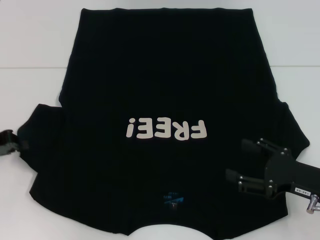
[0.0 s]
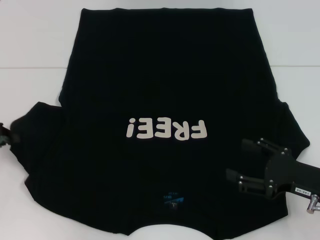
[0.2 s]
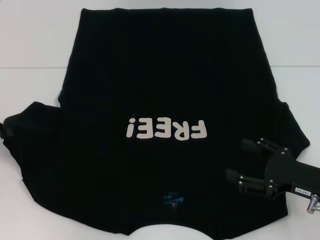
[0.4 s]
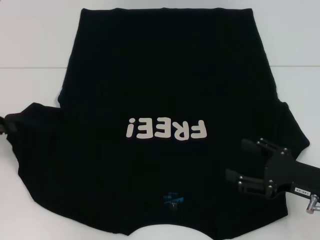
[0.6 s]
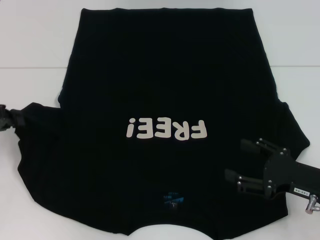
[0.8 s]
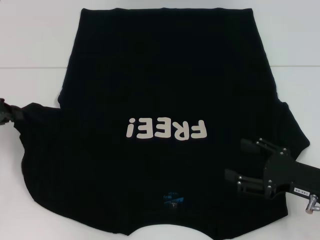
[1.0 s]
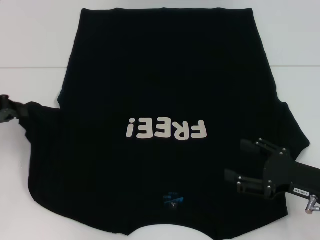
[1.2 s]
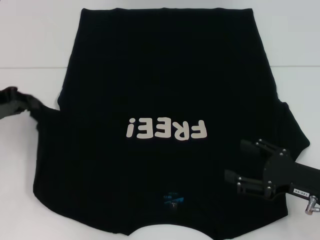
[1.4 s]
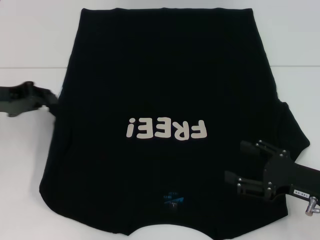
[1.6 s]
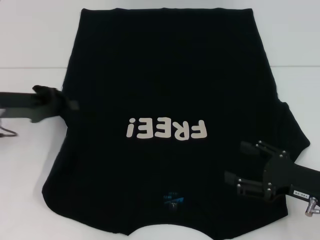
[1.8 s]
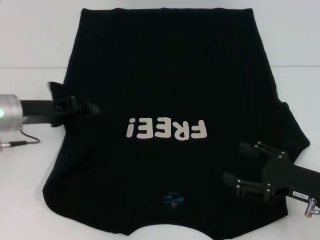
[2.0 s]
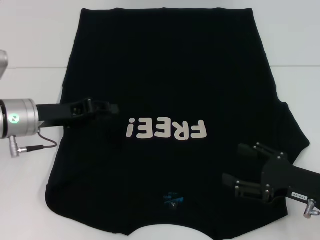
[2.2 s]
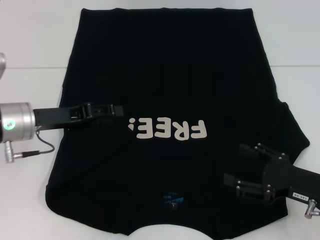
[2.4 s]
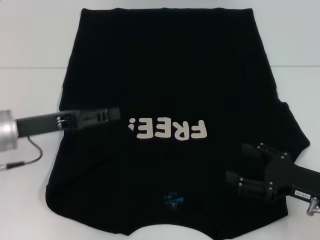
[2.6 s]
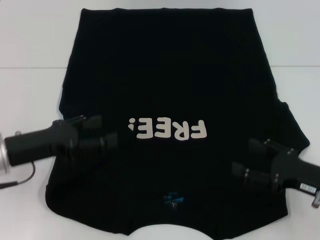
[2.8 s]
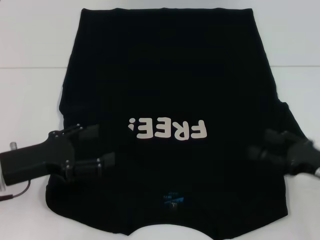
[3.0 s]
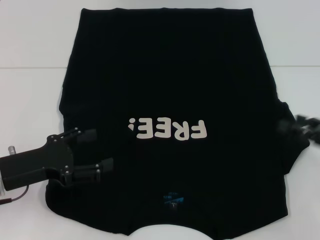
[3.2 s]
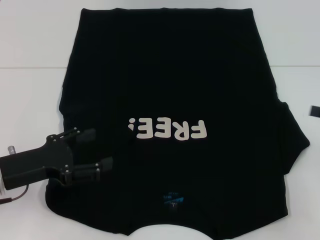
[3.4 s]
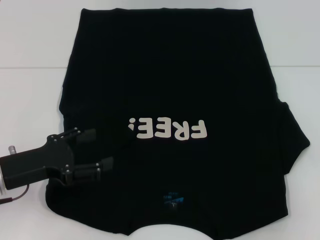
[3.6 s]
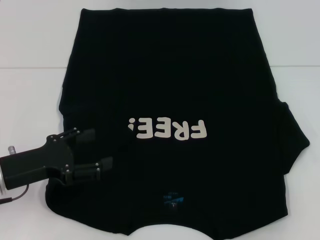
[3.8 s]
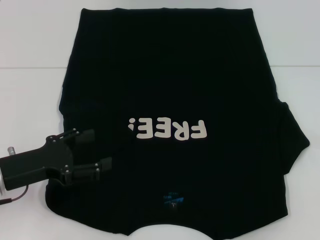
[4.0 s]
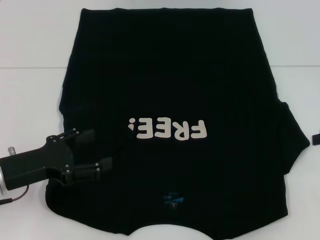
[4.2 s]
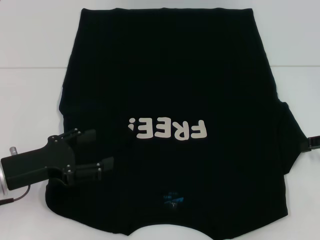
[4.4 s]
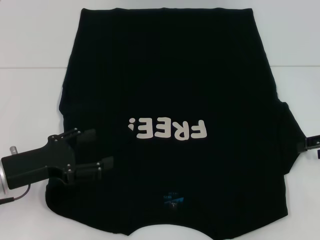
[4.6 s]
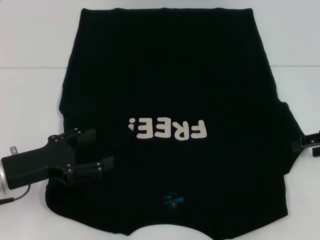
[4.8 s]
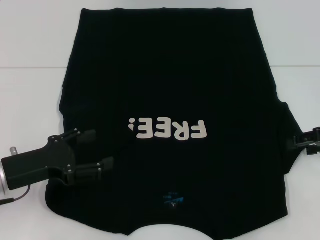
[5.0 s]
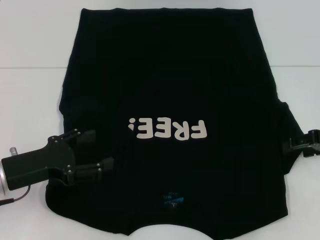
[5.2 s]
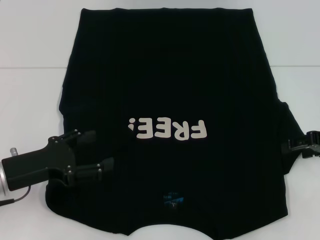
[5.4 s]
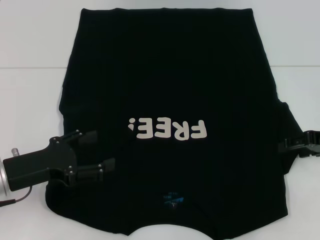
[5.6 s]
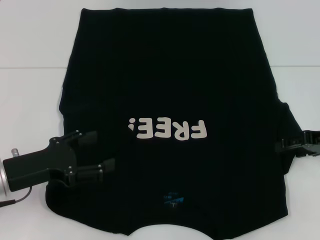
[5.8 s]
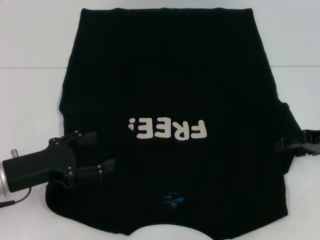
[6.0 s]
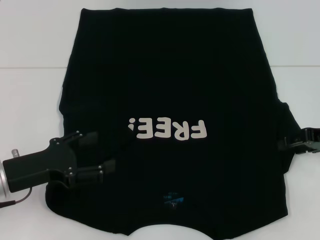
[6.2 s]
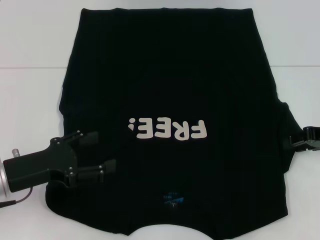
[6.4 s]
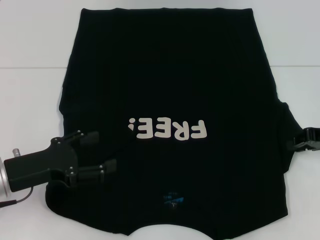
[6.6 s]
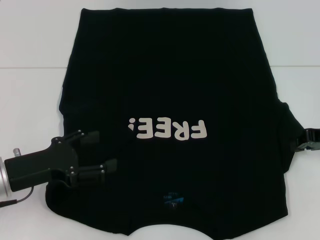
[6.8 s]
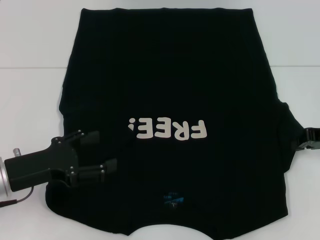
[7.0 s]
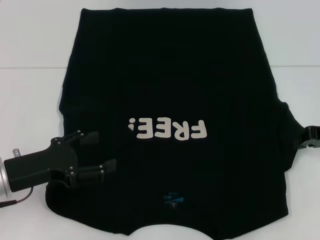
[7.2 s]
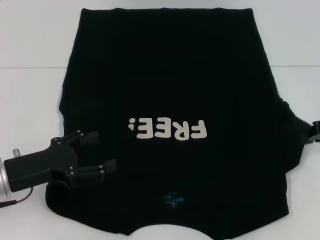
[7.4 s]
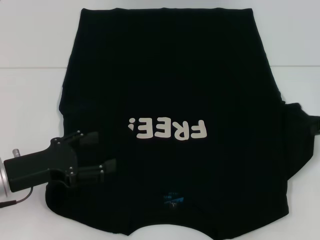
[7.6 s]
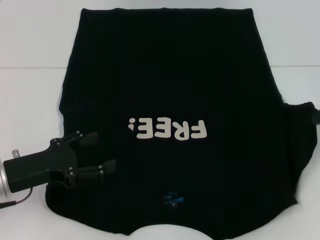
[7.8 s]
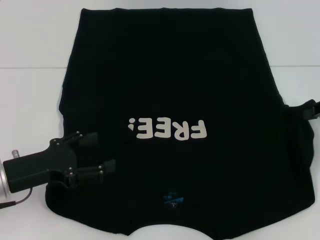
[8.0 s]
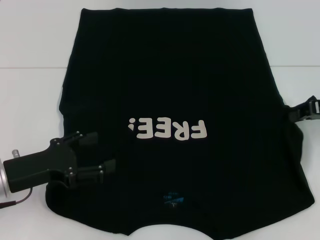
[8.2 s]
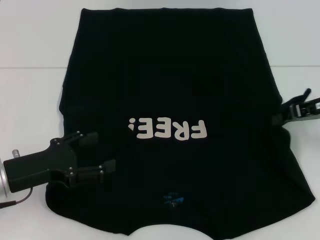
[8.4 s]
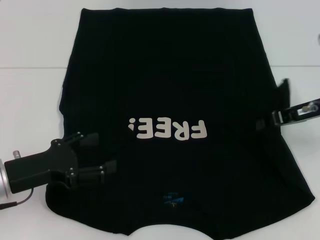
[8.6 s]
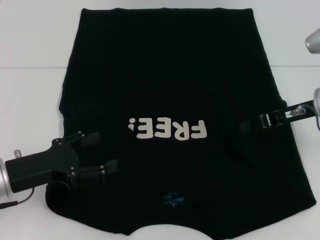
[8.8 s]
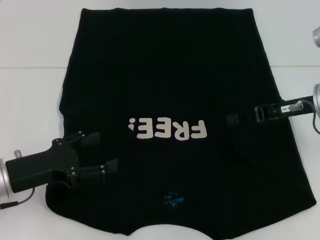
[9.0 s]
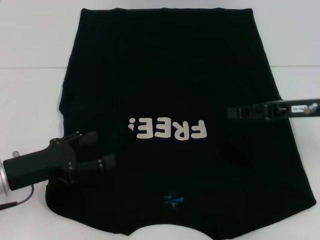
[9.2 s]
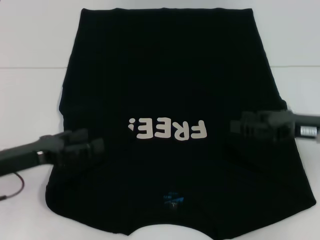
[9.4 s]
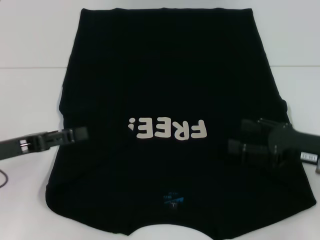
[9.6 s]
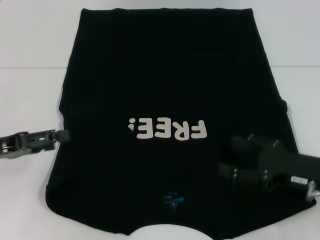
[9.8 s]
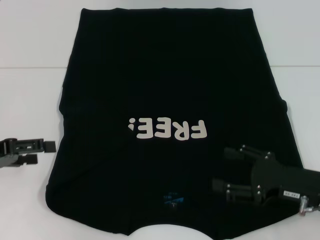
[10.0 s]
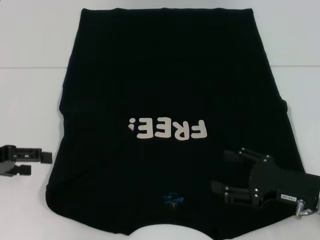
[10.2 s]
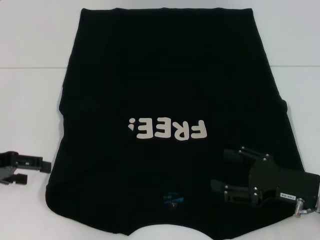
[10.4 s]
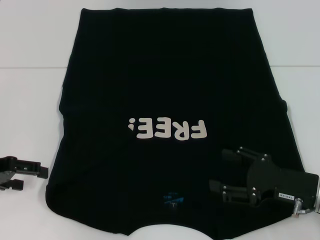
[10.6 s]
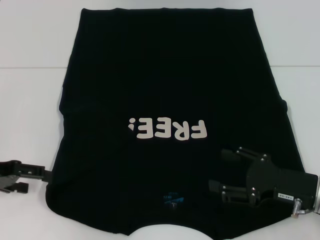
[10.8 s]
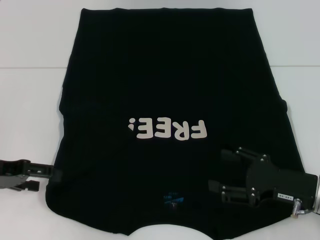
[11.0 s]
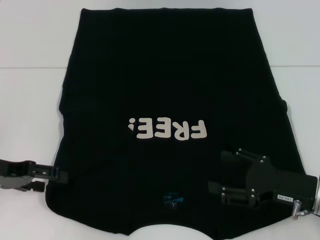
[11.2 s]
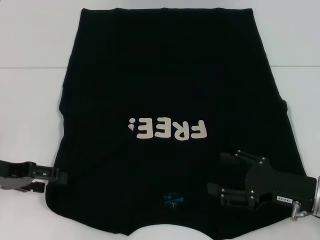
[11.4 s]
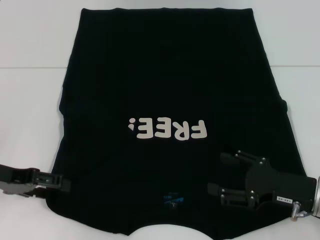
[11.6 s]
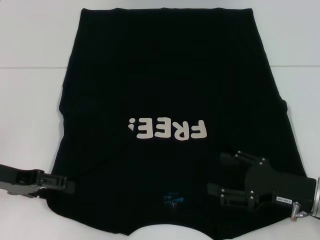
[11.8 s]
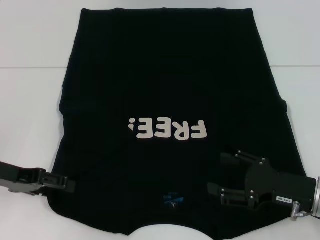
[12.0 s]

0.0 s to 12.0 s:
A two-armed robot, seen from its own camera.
Step, 0.0 to 2.2 s: Fold the bottom left sleeve with your left hand.
Step, 2.4 to 9.0 s: Fold the bottom right sleeve with your right hand.
0.0 to 1.6 s: The left gripper is displaced upward by roughly 5 cm.
1.6 to 3.0 s: The left gripper heads backward, downward and to the right, covering roughly 10 cm, and opens its fingers.
3.0 to 4.4 s: The right gripper travels forward, upward and to the right by about 15 cm.
4.4 to 6.0 s: The grippers move only a little.
6.0 to 7.6 s: The right gripper closes up.
7.6 to 9.0 s: The right gripper heads to the left, covering about 10 cm.
9.0 to 10.4 s: The left gripper heads to the left and upward, covering some 10 cm. The right gripper goes about 15 cm backward and downward, and opens.
10.4 to 12.0 s: The grippers stay close to where they were, moving slightly.

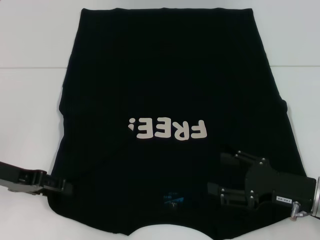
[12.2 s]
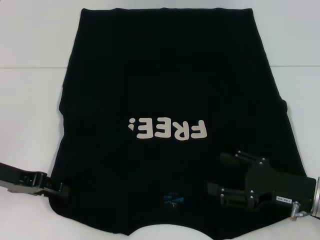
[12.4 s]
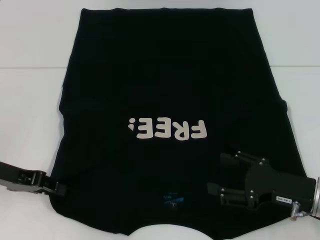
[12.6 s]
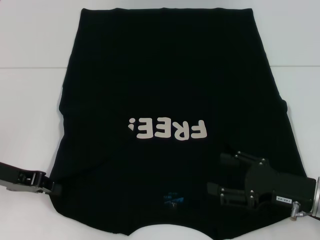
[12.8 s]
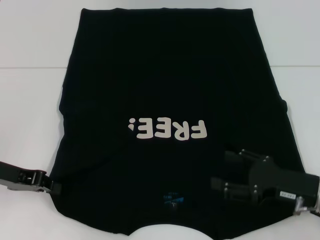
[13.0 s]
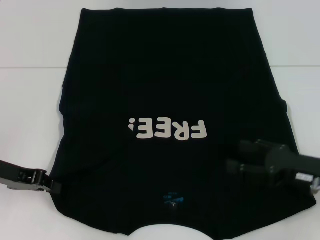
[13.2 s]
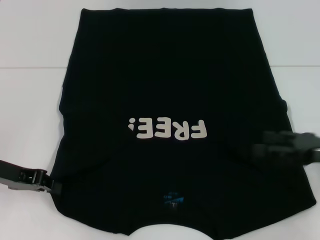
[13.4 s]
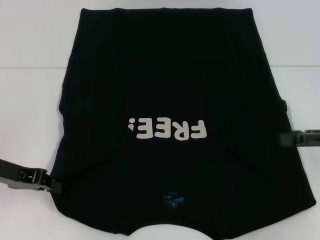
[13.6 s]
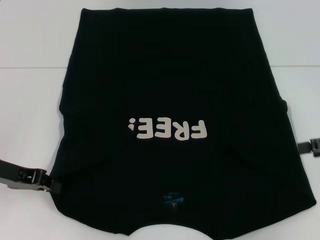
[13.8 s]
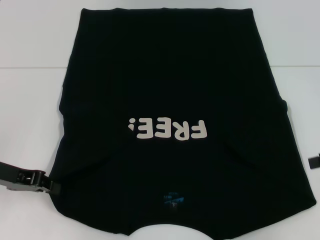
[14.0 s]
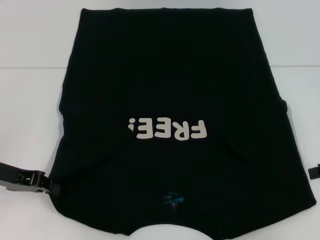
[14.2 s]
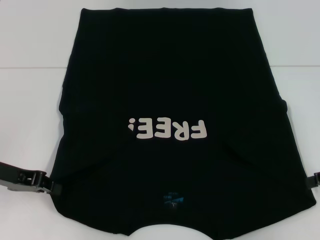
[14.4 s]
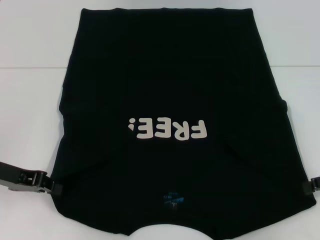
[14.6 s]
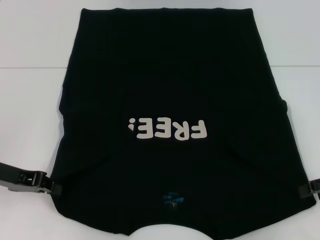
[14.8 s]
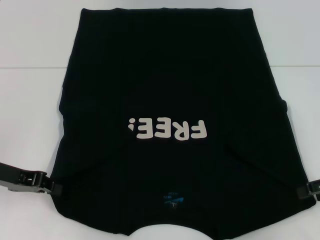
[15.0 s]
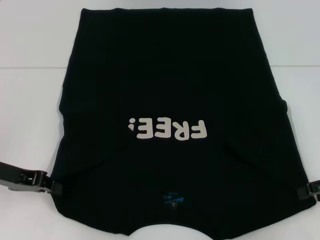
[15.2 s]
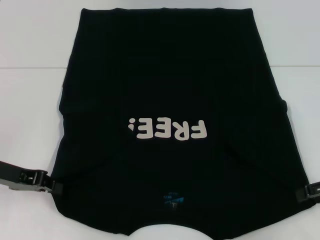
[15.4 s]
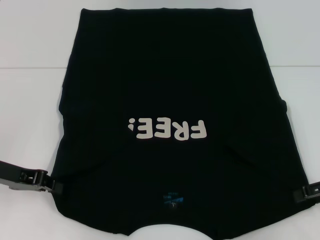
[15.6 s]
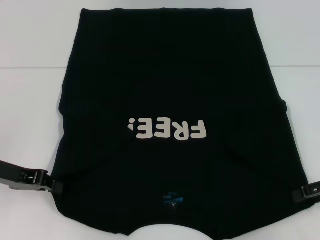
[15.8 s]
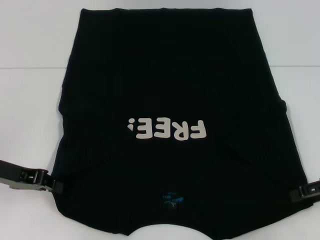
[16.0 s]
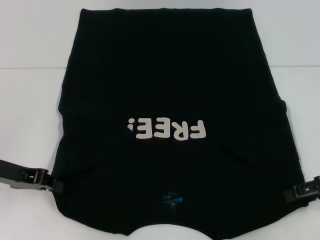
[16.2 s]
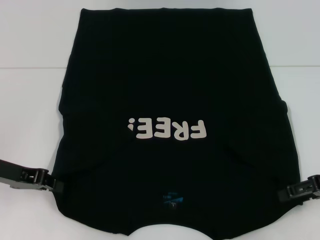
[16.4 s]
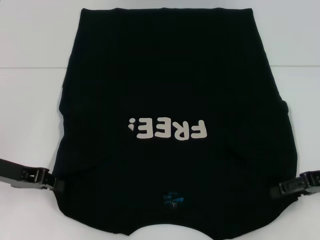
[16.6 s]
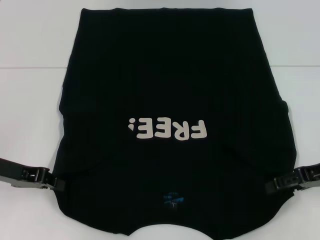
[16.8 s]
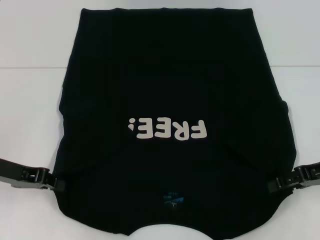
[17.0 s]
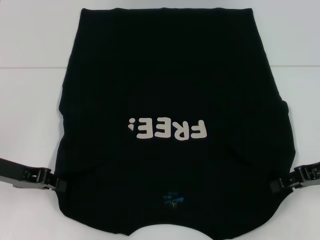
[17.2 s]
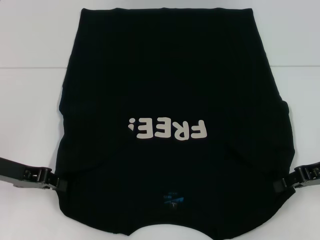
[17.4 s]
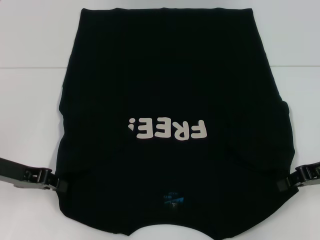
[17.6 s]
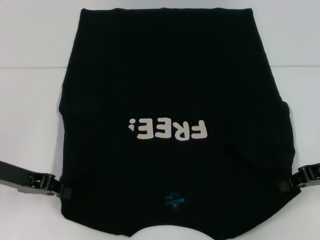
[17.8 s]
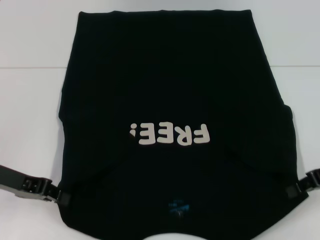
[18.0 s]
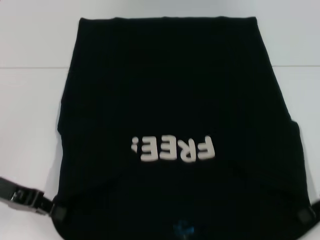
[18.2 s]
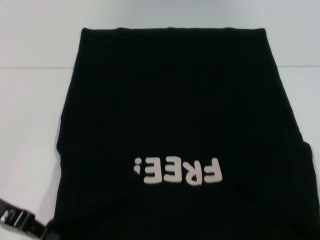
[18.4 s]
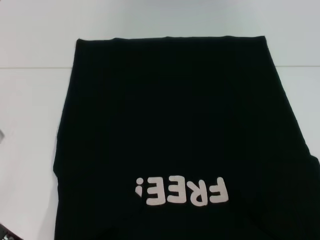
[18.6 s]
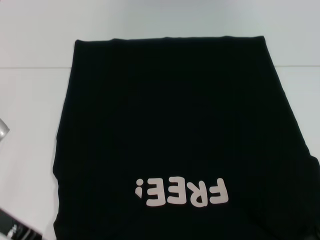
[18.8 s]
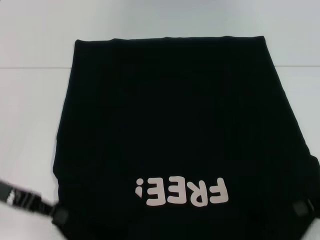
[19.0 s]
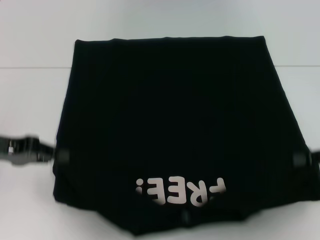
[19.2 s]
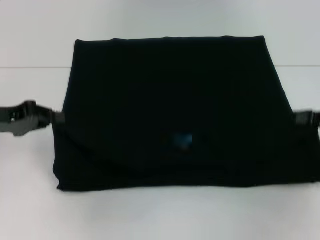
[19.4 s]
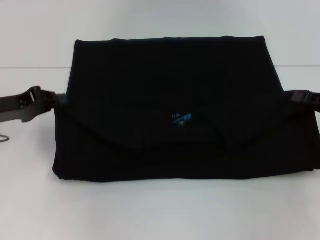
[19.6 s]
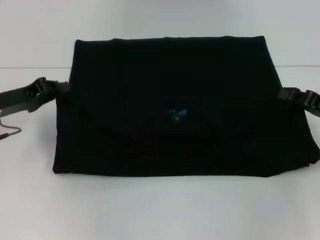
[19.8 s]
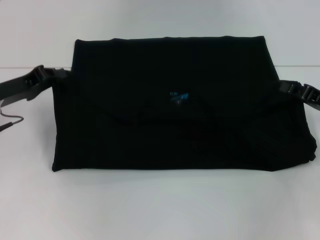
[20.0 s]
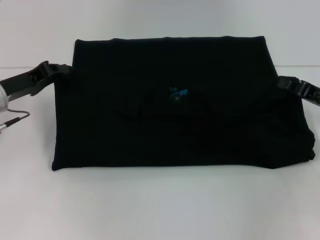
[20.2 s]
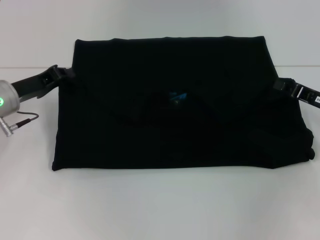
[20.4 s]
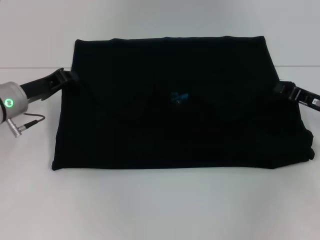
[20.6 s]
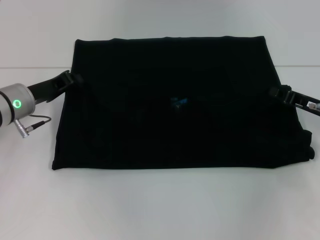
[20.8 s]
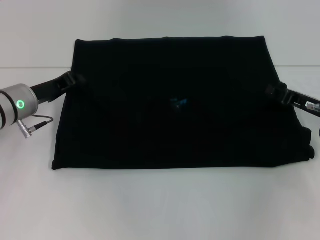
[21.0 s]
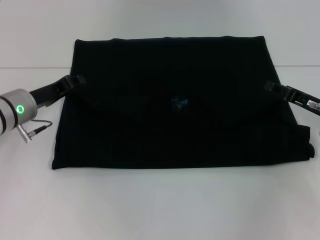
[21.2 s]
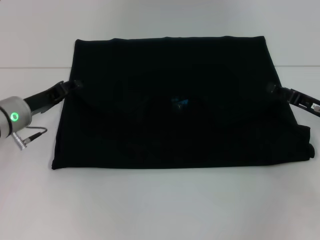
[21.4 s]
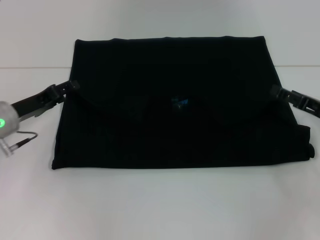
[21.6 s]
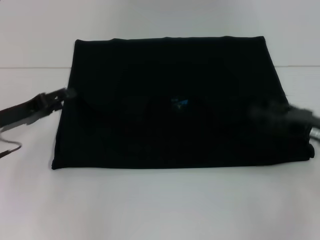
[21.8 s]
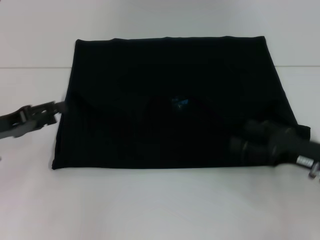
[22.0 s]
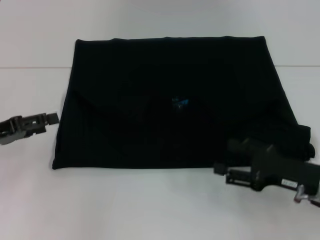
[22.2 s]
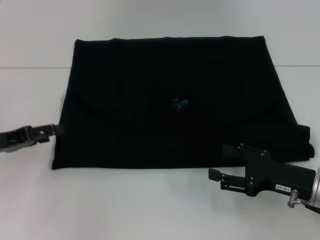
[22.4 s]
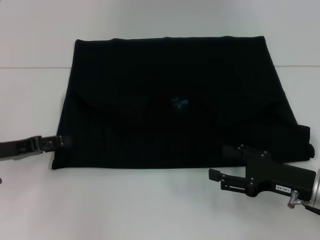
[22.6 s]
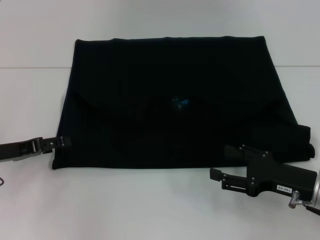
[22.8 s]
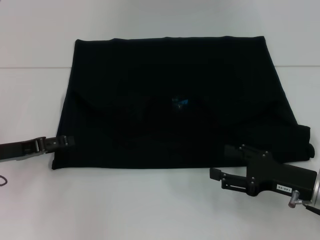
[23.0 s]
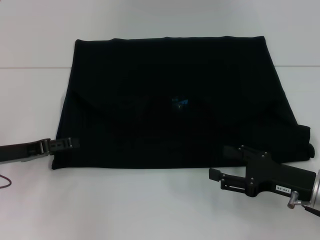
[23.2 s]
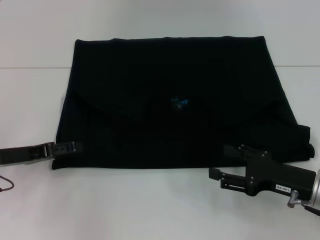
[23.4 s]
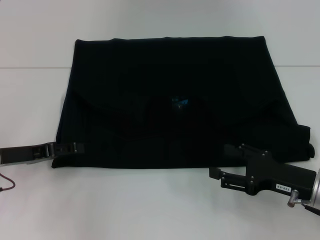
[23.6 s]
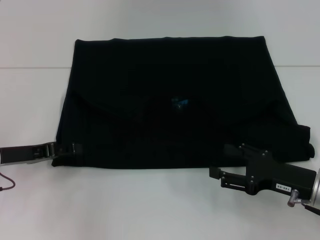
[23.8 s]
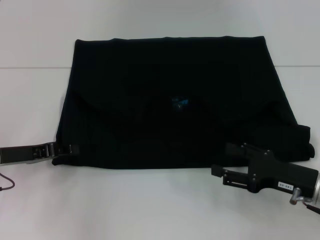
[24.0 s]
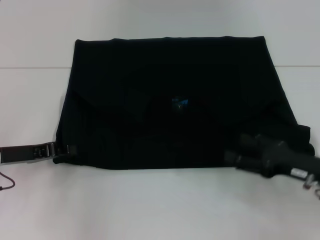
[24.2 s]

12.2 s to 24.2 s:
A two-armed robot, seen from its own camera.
Step, 13.0 to 16.2 s: Grab the bottom right corner with your right hand.
Step, 16.4 to 21.6 s: Fold the clothes with your left hand.
Step, 16.4 to 21.6 s: Fold the clothes with your right hand.
12.2 to 13.8 s: The left gripper closes its fingers; the right gripper moves upward, to the right and forward, approximately 15 cm.
13.8 to 15.2 s: The grippers move only a little.
15.2 to 16.6 s: The grippers make only small movements.
16.6 to 18.2 s: The right gripper closes.
18.2 to 19.8 s: The left gripper shifts some 5 cm forward.
19.8 to 21.2 s: The left gripper heads to the right, covering roughly 5 cm.
21.2 to 22.6 s: The left gripper is displaced backward and to the left by about 10 cm, and opens, while the right gripper is displaced backward by about 10 cm, and opens up.
22.6 to 24.2 s: The left gripper closes its fingers.
